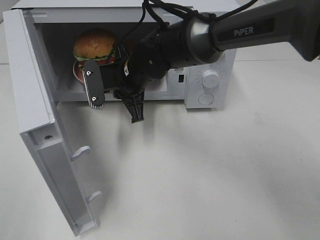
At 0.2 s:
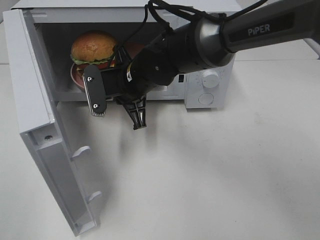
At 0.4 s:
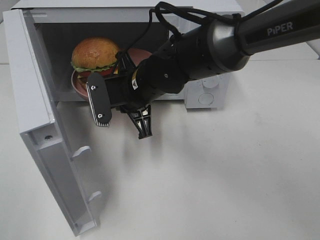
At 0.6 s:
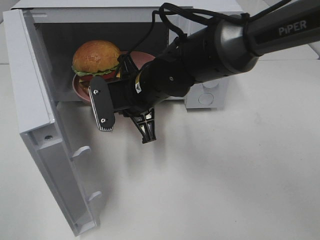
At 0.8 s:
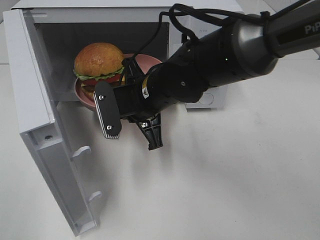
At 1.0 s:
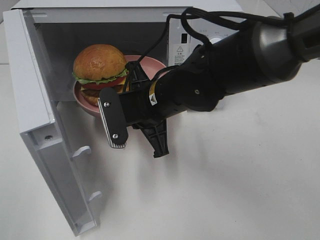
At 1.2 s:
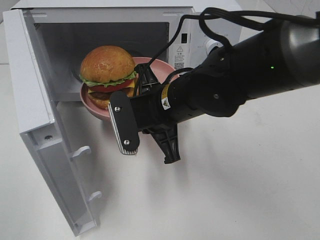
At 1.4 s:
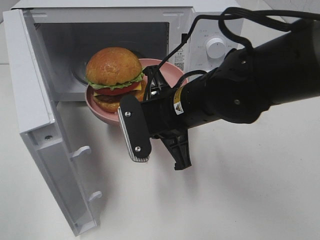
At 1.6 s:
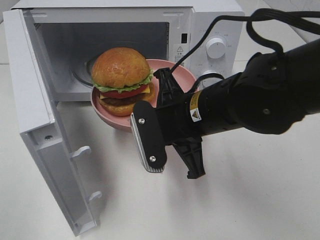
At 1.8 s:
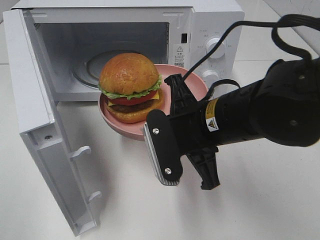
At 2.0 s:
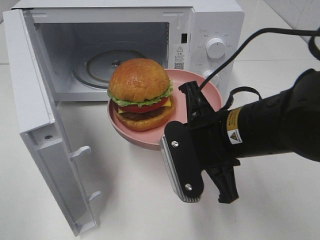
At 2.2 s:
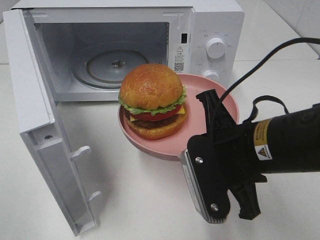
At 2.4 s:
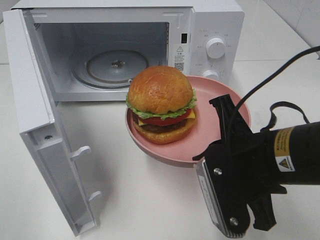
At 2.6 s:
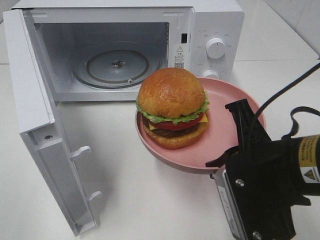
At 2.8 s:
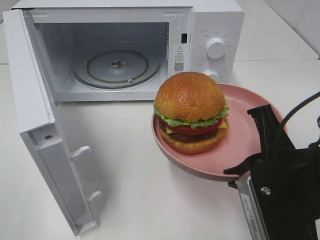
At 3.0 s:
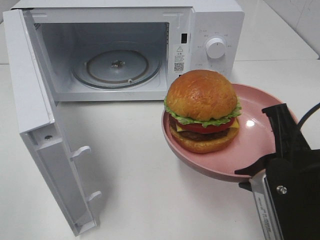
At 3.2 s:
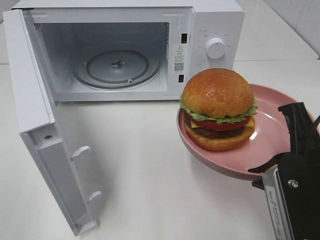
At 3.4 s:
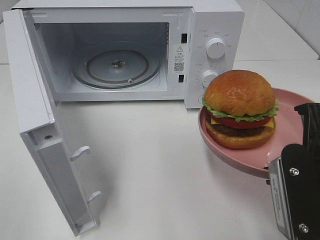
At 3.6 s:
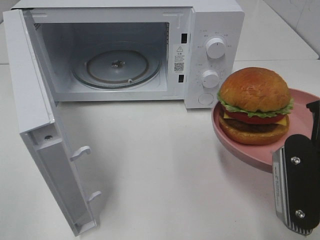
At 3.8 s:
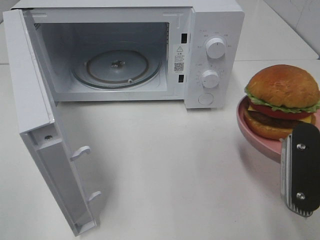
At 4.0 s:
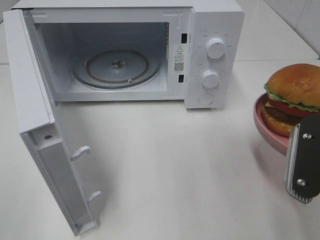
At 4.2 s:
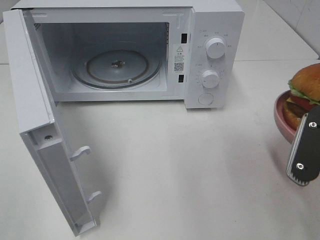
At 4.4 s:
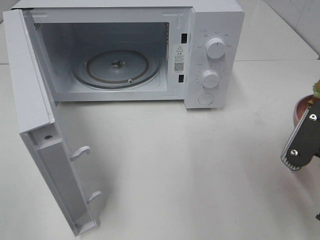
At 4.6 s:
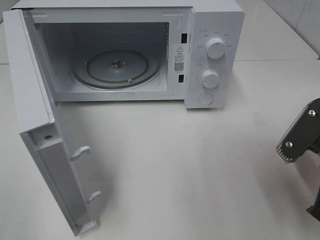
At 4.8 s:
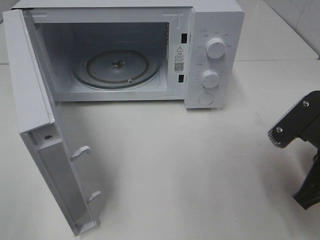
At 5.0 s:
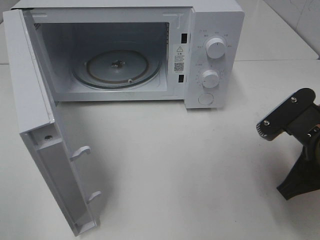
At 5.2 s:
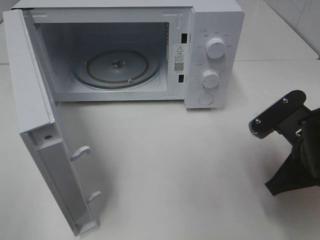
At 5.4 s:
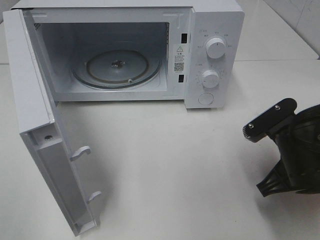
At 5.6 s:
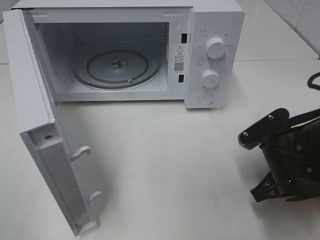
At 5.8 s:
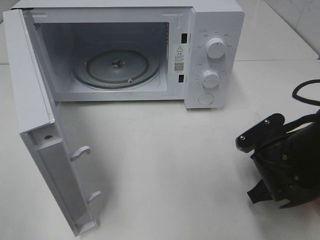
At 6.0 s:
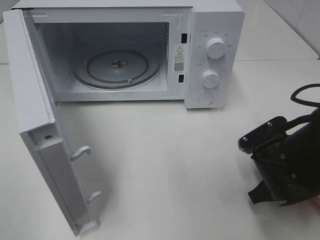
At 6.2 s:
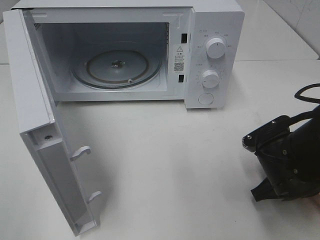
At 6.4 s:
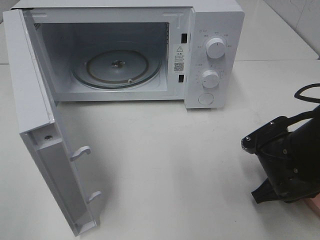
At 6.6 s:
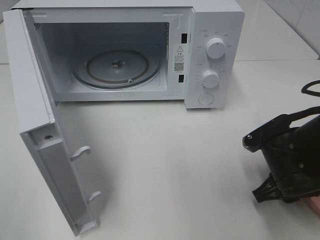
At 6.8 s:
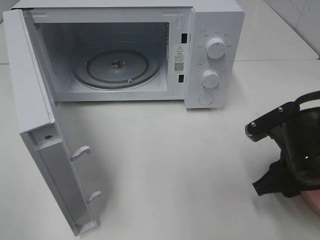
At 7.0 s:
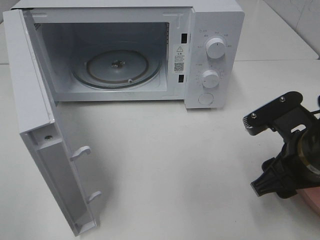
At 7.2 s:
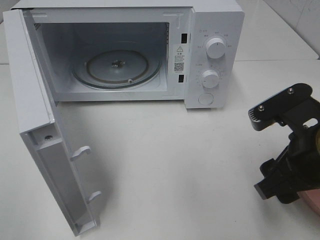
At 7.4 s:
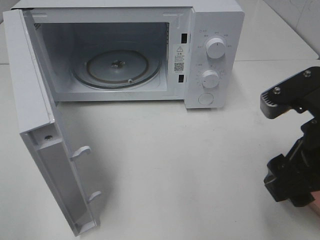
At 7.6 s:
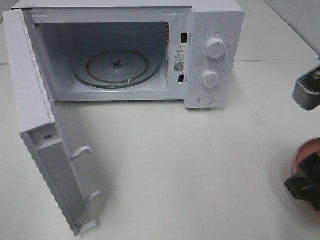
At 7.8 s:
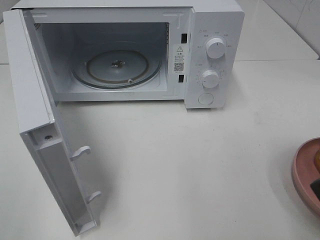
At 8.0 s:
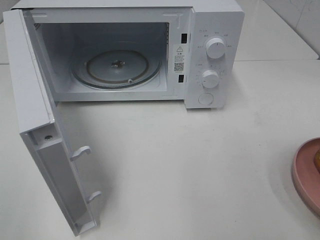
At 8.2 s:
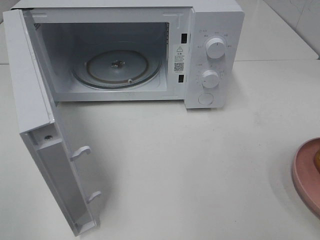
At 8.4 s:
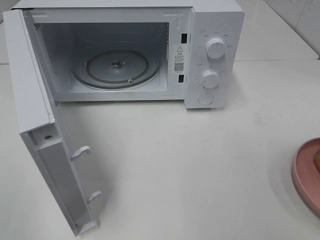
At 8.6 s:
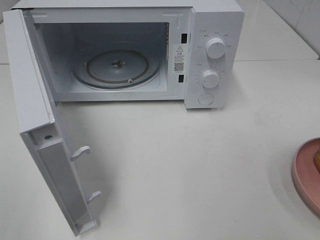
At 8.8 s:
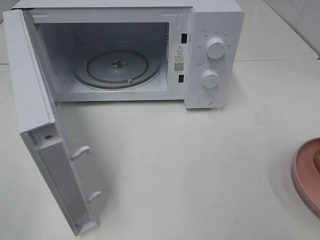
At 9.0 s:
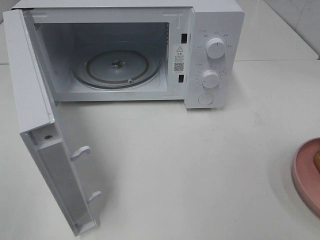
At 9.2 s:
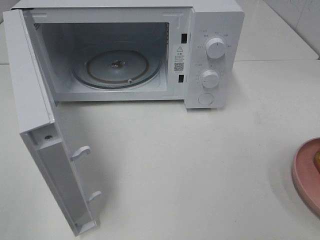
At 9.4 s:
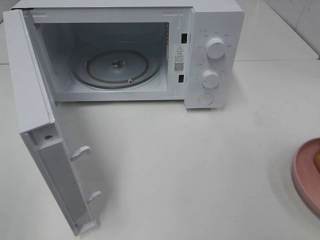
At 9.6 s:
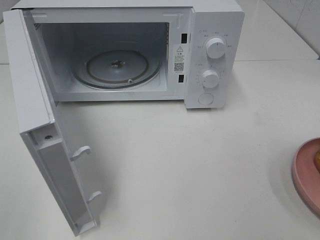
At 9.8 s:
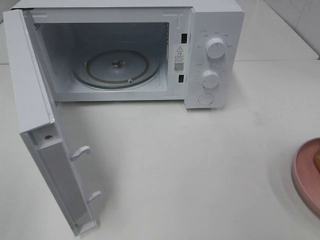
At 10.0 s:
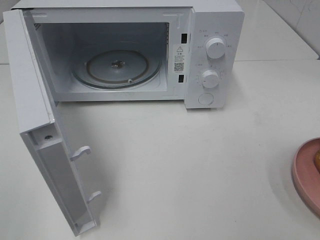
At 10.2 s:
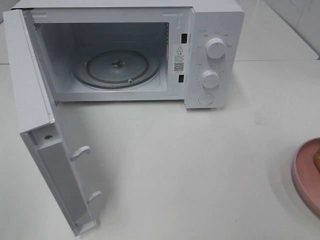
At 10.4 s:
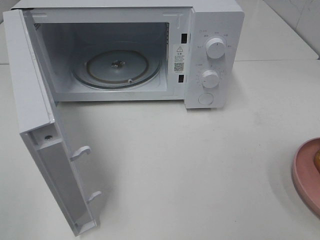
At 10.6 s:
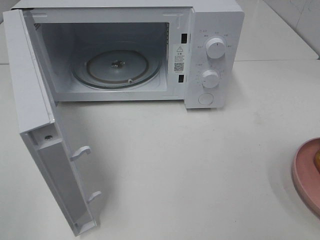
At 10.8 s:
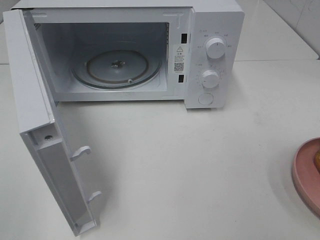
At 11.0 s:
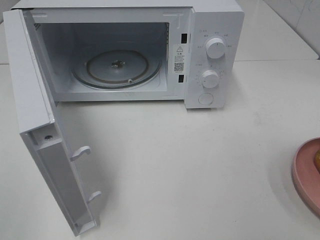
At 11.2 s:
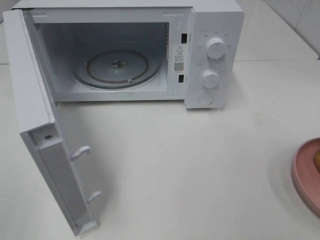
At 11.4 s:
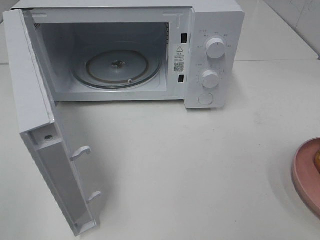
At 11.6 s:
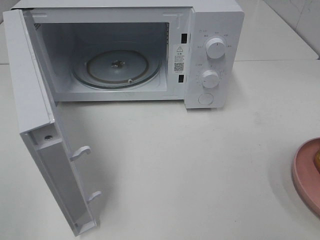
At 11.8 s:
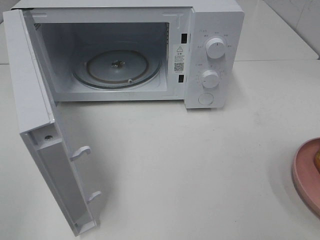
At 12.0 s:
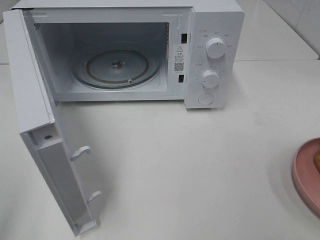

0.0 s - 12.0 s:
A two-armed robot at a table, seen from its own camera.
Task of the whole recording: Heat the burger.
Step, 0.0 s - 6.4 s: Right hand: place the plate on the table.
0.0 s - 1.6 s: The right gripper heads backward and to the right, covering about 15 cm.
1.6 s - 3.0 s: The right gripper is displaced to the right and backward by some 15 cm.
3.0 s - 4.4 s: The right gripper shifts approximately 5 cm to the right.
4.4 s - 6.0 s: The right gripper shifts approximately 10 cm downward and forward.
6.0 s - 7.6 s: The right gripper goes some 20 cm upward and backward, and opens.
7.6 s - 9.0 s: The right gripper is displaced backward and to the right by some 15 cm.

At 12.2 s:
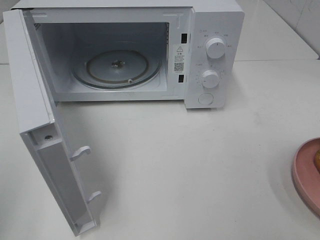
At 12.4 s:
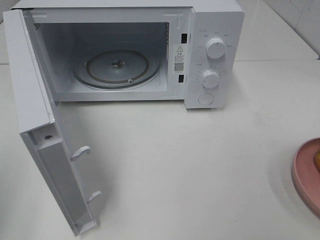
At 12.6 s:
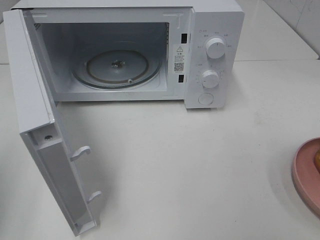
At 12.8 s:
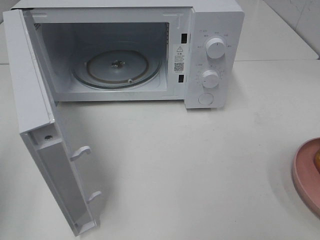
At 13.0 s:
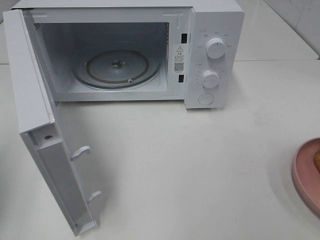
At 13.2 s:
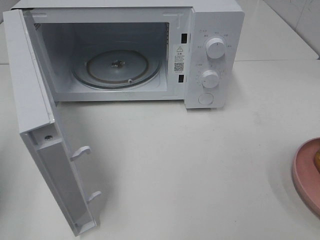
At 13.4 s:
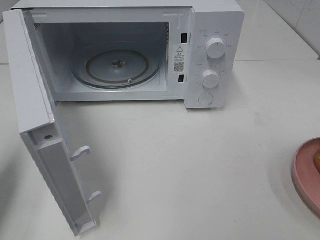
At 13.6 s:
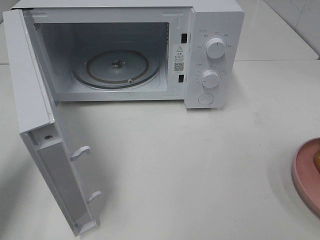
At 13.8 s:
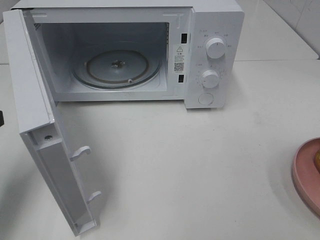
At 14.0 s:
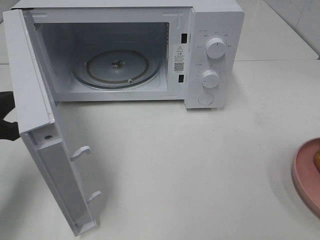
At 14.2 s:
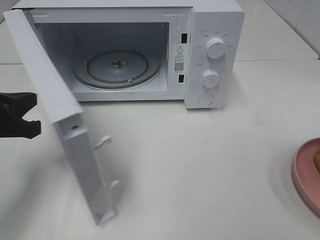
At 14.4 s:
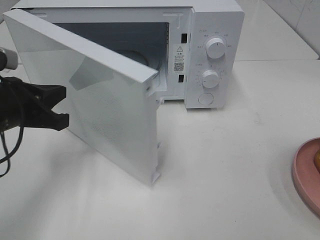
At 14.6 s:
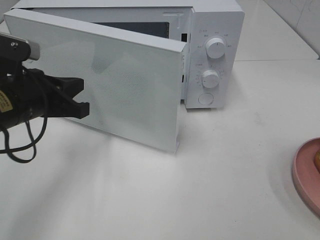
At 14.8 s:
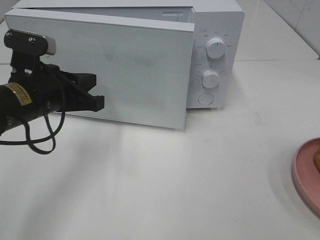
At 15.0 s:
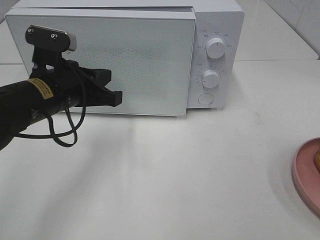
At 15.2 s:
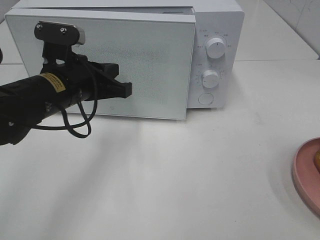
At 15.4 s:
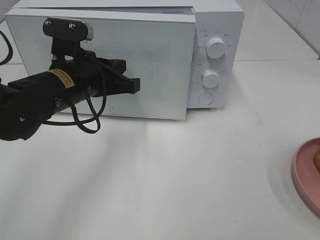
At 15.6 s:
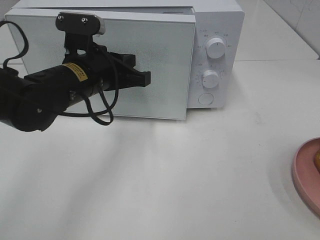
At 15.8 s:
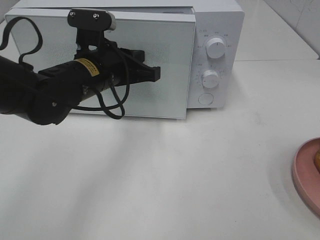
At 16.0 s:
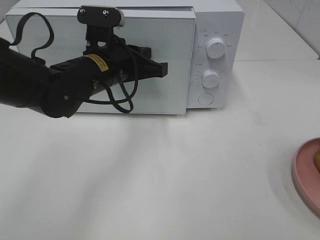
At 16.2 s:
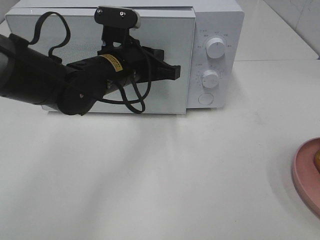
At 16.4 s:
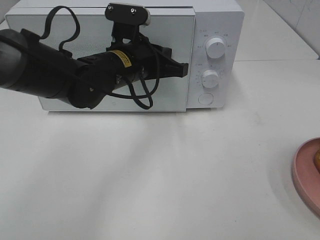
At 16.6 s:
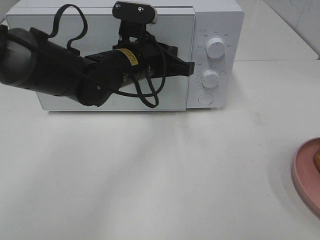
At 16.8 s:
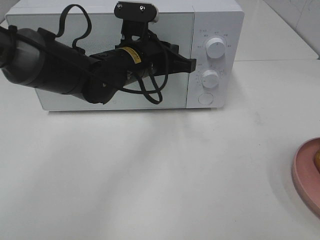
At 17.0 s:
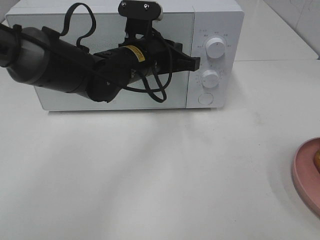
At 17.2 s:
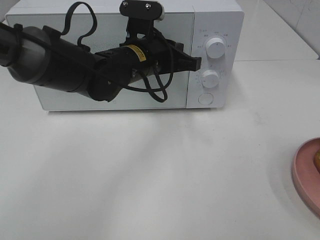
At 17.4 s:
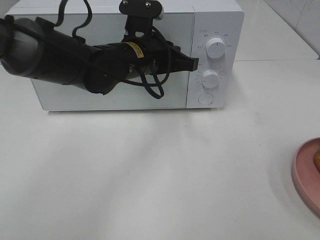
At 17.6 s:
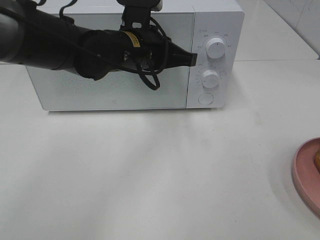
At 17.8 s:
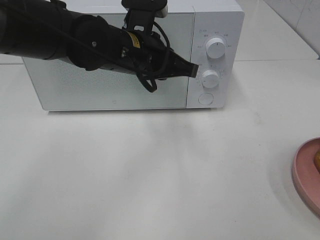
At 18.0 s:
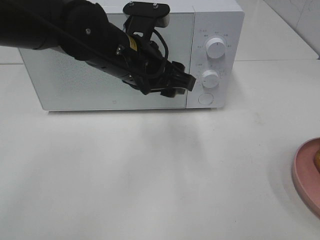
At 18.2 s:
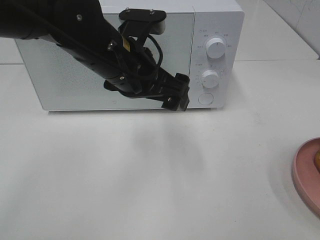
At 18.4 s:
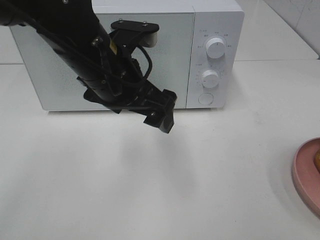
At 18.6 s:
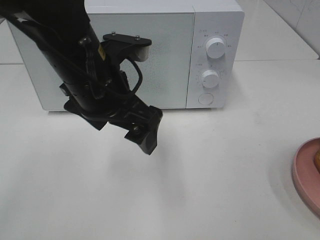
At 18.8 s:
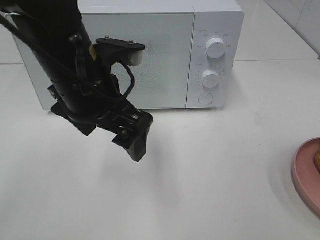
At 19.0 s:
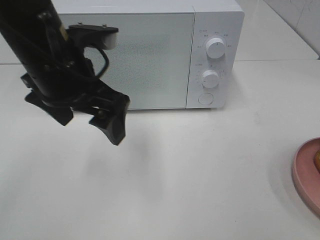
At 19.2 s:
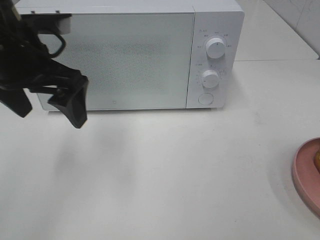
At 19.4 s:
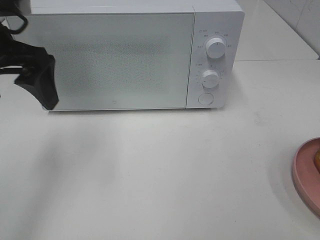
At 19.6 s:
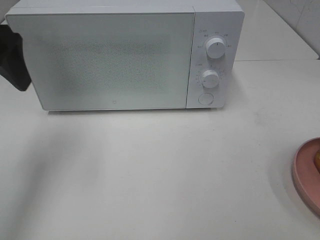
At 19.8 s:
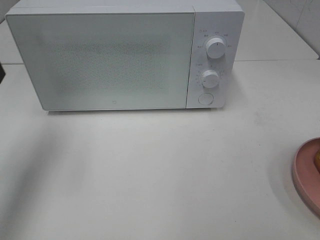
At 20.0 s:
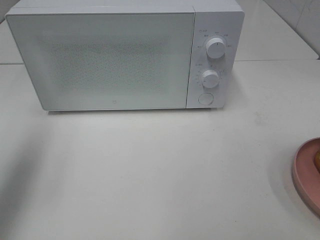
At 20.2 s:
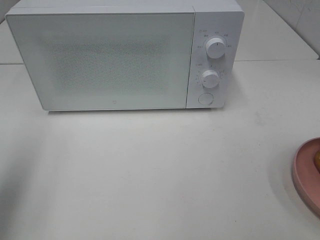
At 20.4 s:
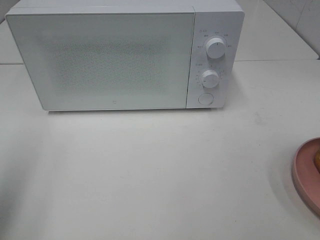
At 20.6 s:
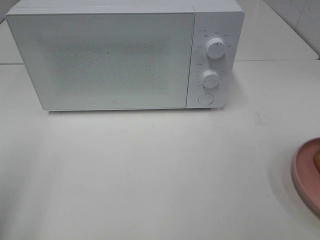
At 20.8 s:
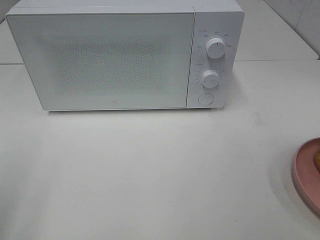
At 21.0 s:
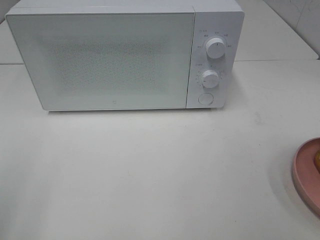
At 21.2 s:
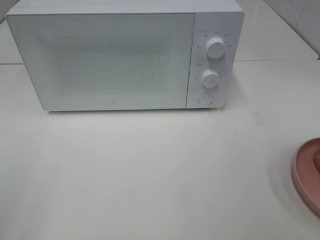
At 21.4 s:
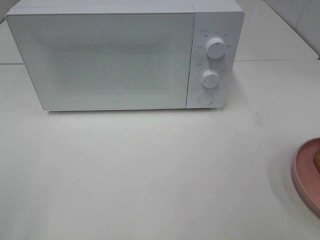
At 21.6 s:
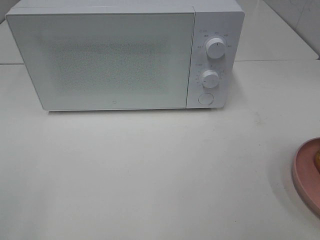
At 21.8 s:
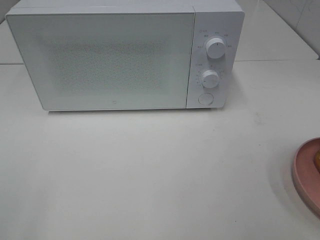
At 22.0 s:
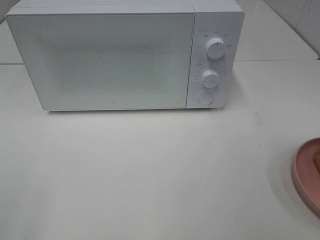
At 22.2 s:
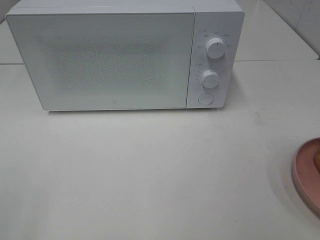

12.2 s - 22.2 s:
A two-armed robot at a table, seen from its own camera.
Task of the whole recording: Heat the burger.
Step, 12.2 s - 17.4 s: Left hand: close the microwave door.
12.2 s - 13.6 s: The left gripper is displaced forward and downward by about 15 cm.
13.6 s - 15.0 s: The left gripper moves to the right and forward, about 20 cm.
15.0 s - 16.4 s: The left gripper heads to the right and forward, covering some 10 cm.
16.4 s - 18.0 s: The left gripper shifts by approximately 5 cm, and opens.
18.0 s - 19.4 s: The left gripper travels to the left and upward by approximately 20 cm.
19.4 s - 20.8 s: The left gripper heads backward and to the left, covering approximately 25 cm.
